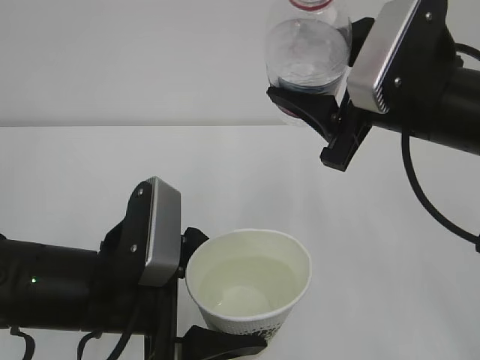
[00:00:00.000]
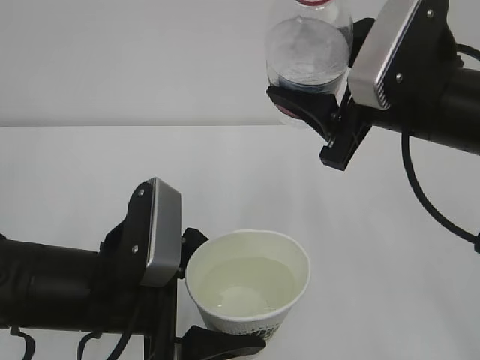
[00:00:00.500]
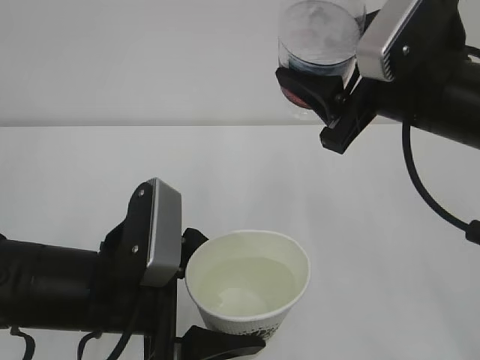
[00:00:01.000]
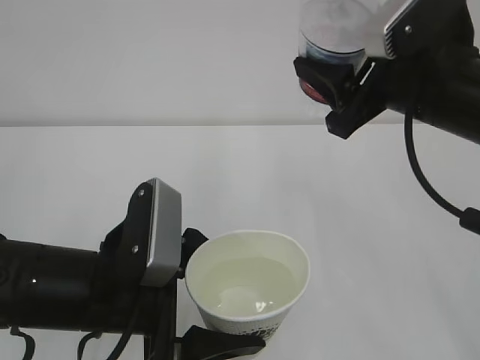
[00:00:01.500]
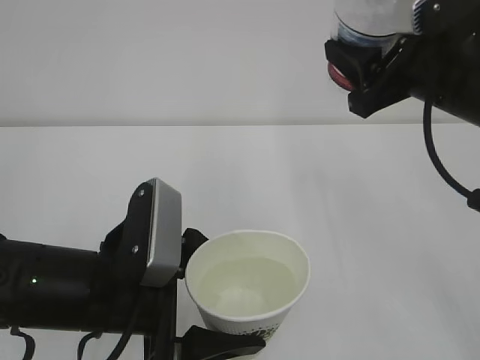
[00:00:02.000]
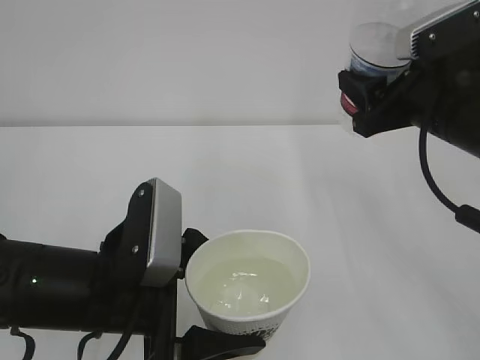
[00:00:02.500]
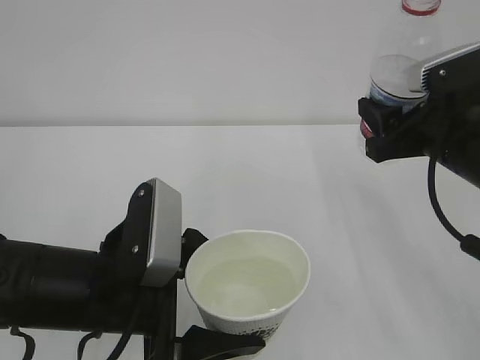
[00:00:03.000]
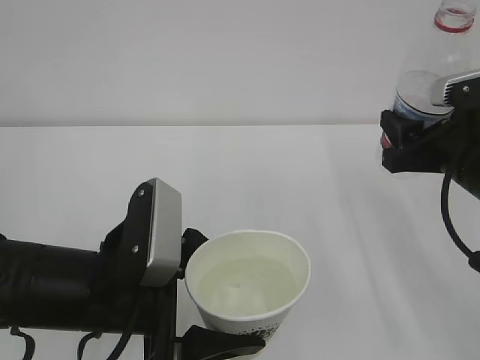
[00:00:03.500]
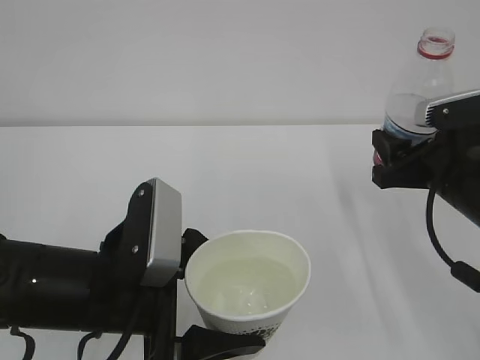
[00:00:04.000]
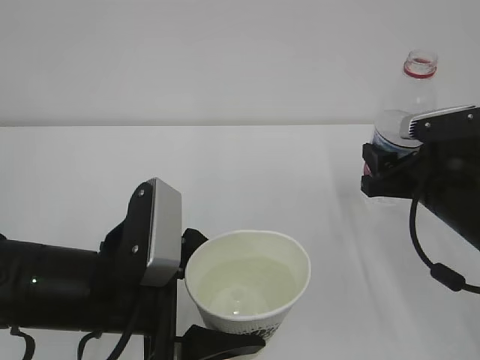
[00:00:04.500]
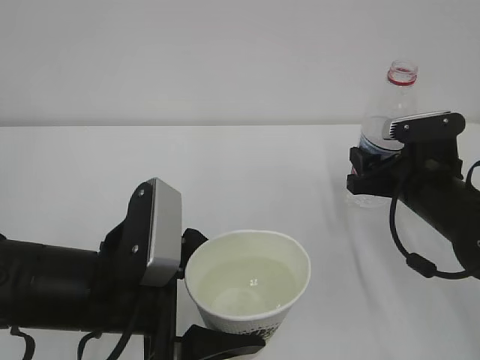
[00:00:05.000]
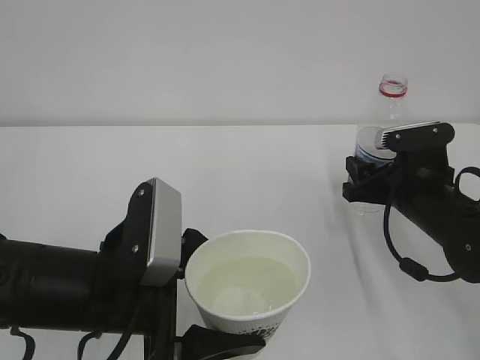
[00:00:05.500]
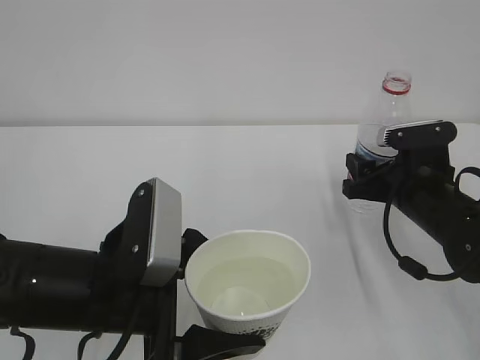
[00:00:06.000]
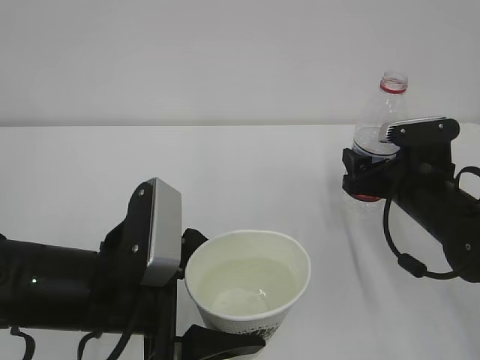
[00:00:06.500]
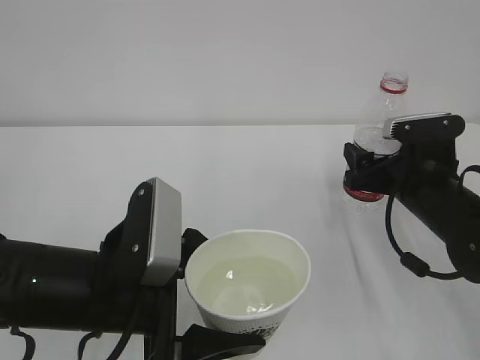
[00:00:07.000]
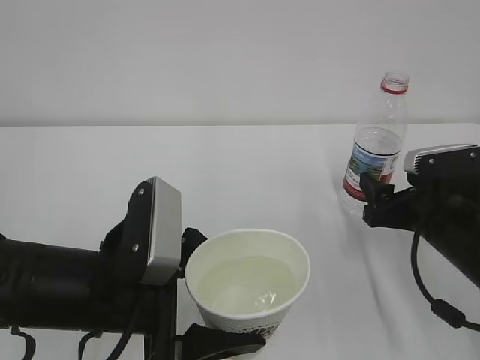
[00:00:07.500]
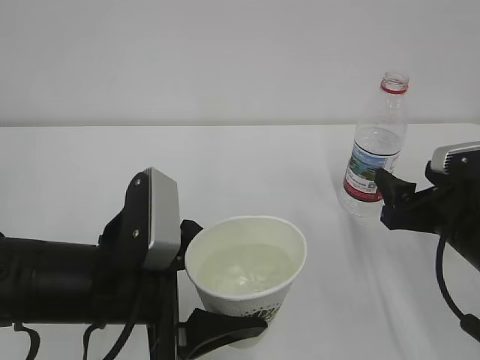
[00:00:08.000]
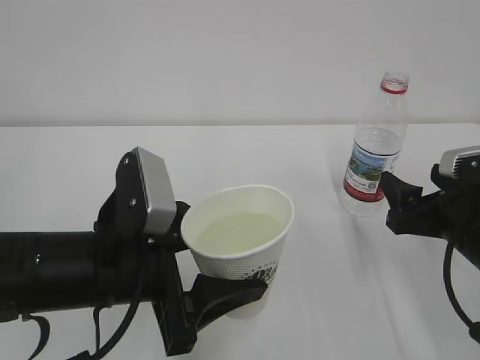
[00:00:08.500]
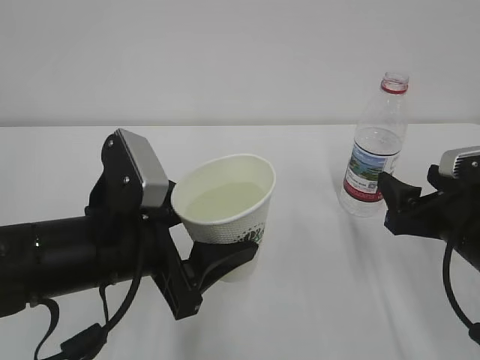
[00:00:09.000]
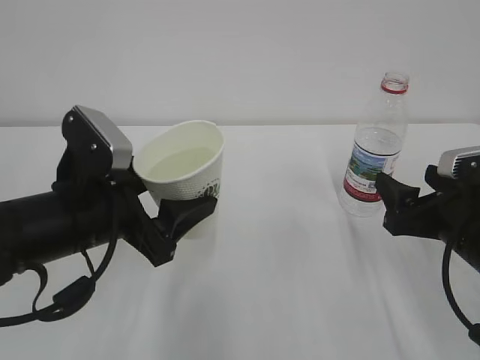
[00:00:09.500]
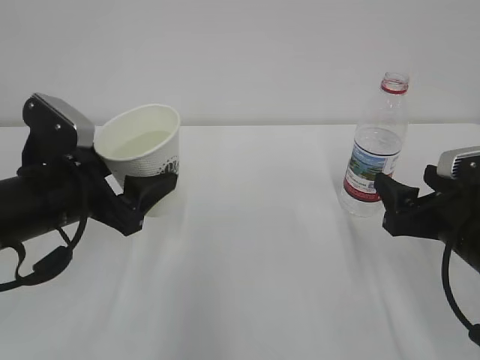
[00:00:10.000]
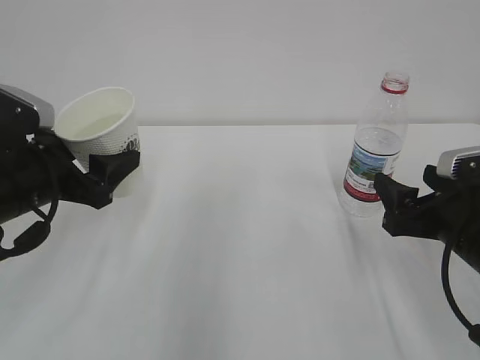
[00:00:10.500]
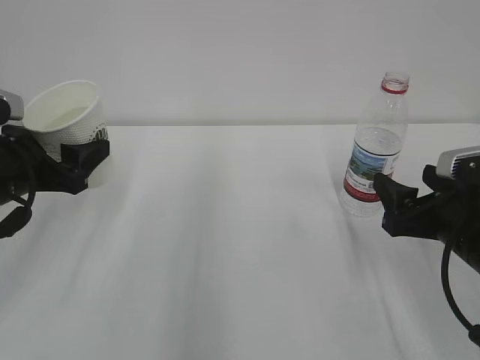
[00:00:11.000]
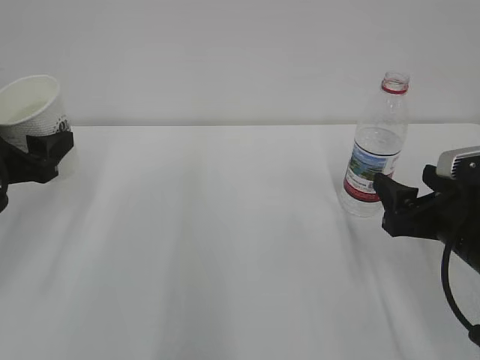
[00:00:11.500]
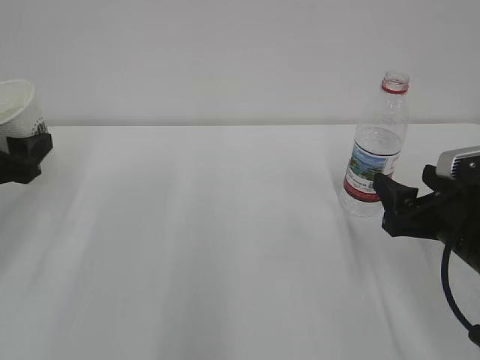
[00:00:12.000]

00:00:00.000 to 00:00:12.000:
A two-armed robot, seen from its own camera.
00:00:02.000 to 00:00:04.000: The right gripper travels downward by approximately 10 cm.
00:00:04.000 to 00:00:06.000: The right gripper shifts some 5 cm downward.
00:00:06.000 to 00:00:08.000: The right gripper heads backward, covering about 10 cm, and opens its fingers.
00:00:08.000 to 00:00:10.000: The left gripper goes about 10 cm to the left and forward.
00:00:10.000 to 00:00:12.000: The left gripper heads to the left, covering some 10 cm.

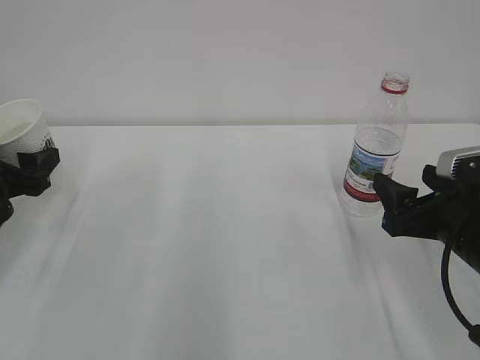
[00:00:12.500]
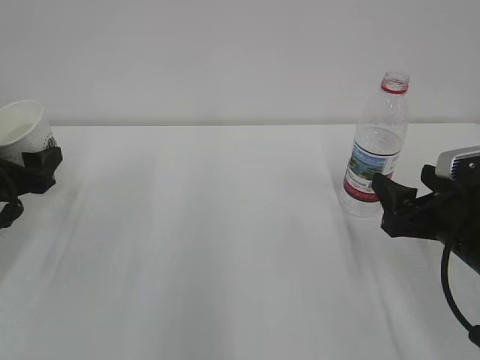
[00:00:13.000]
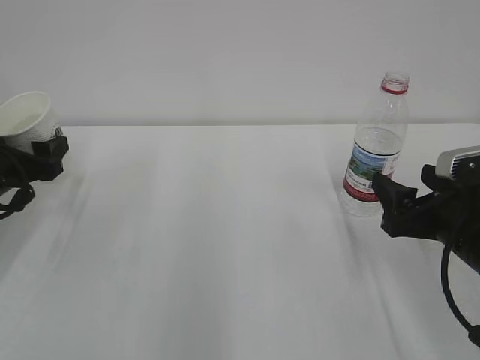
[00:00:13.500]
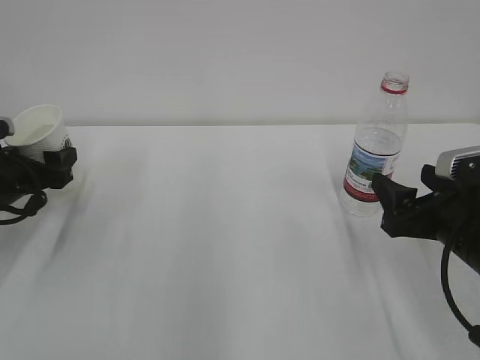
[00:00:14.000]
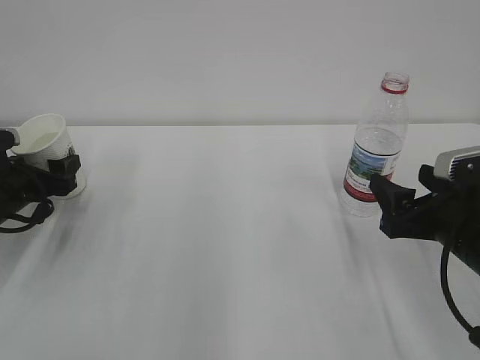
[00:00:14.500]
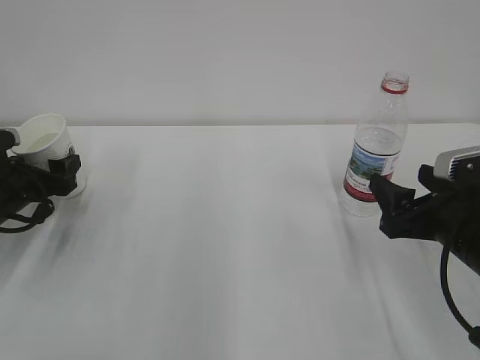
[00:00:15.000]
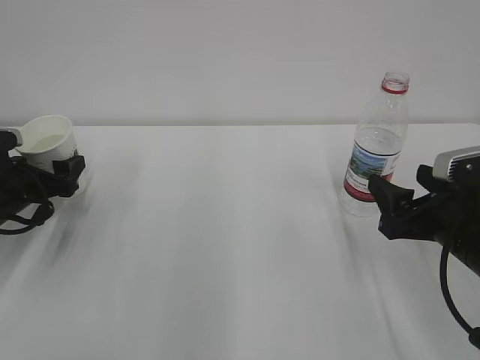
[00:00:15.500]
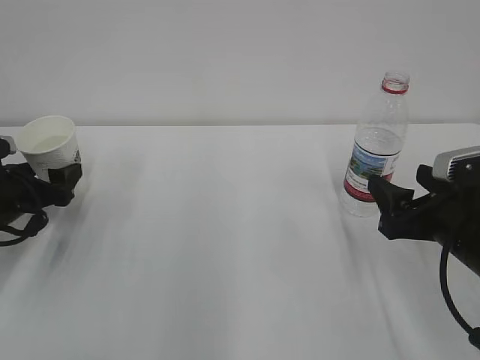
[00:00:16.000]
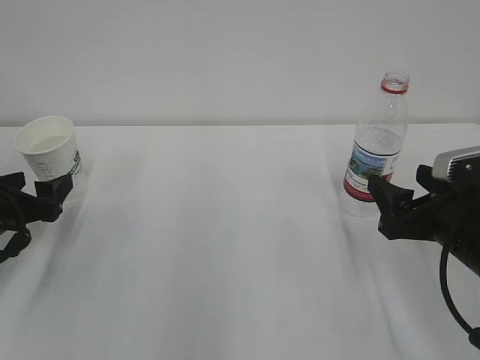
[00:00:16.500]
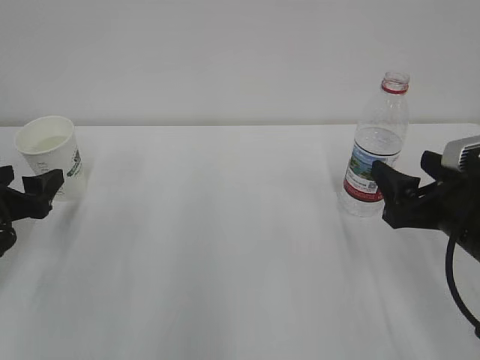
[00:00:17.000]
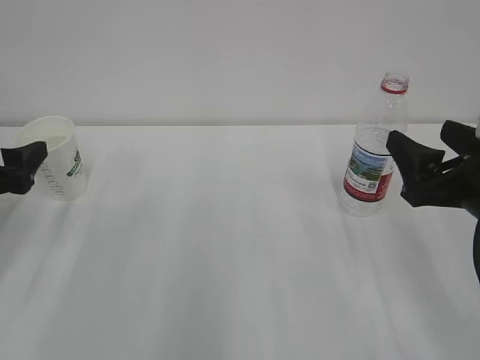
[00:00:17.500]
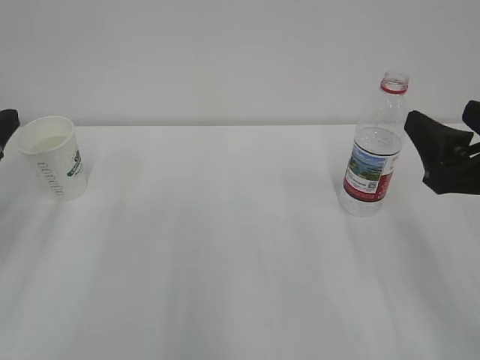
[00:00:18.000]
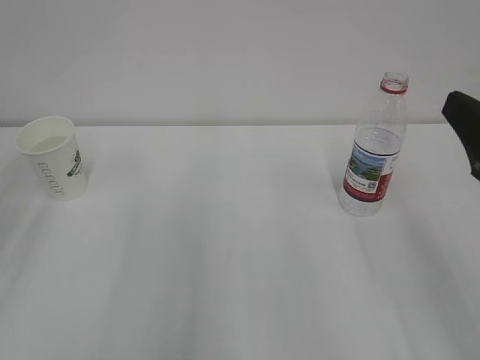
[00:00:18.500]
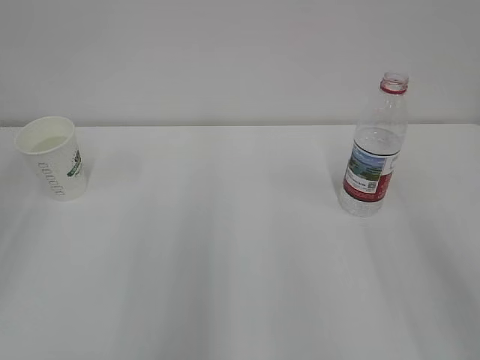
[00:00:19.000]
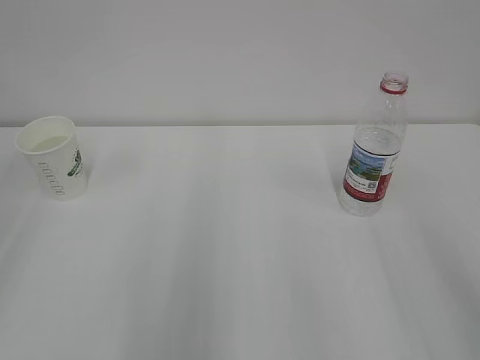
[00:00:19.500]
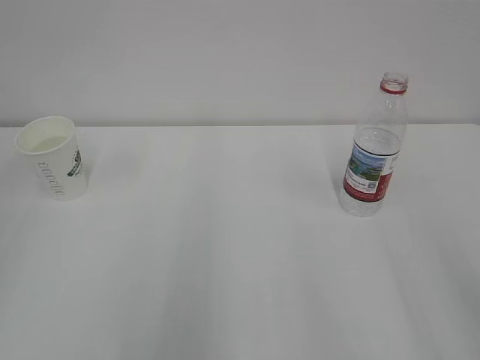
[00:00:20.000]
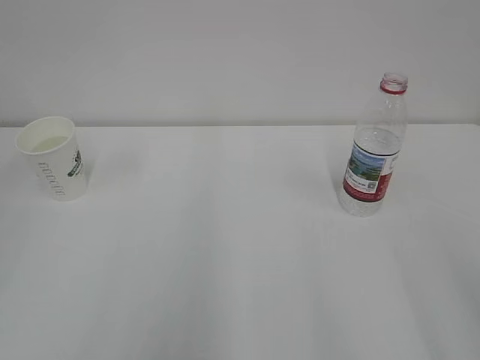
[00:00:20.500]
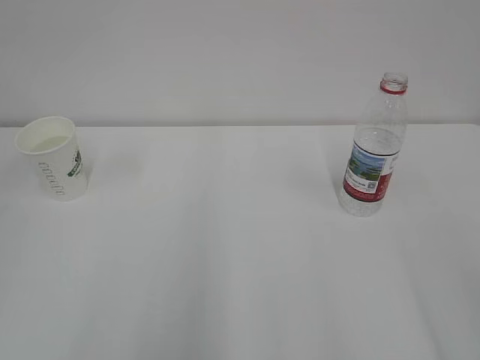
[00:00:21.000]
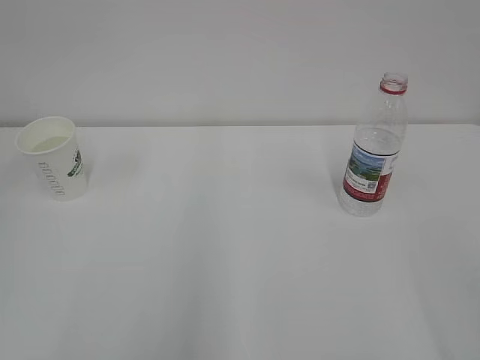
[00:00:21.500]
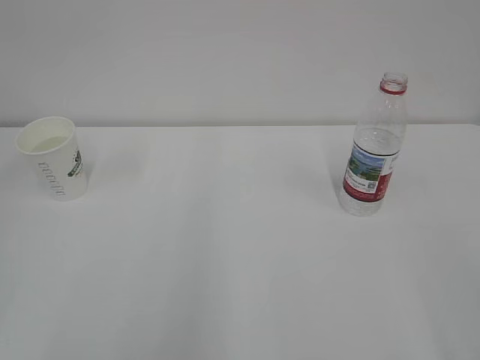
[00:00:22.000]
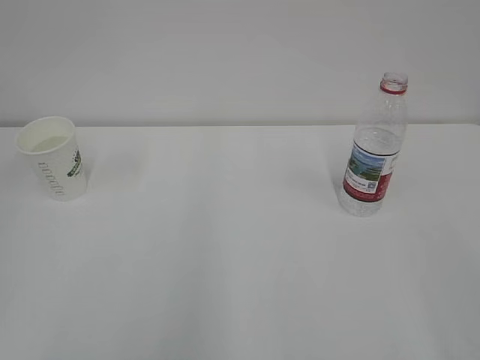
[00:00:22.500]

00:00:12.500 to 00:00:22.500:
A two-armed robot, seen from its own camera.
00:00:12.500 to 00:00:14.500: The left gripper shifts about 10 cm downward and forward.
00:00:14.500 to 00:00:16.500: The left gripper is displaced backward by roughly 5 cm, and opens up.
00:00:16.500 to 00:00:18.500: Both grippers move upward and backward, about 15 cm.
00:00:18.500 to 00:00:20.500: The right gripper moves backward, roughly 10 cm.
